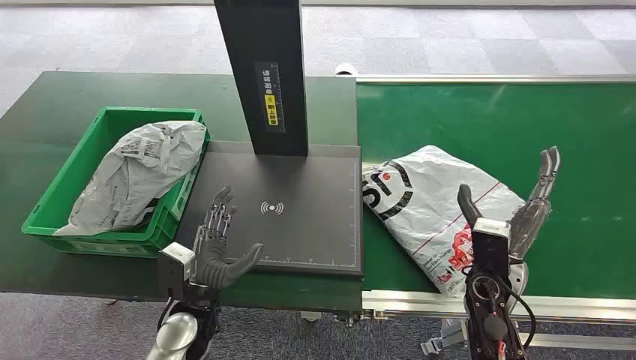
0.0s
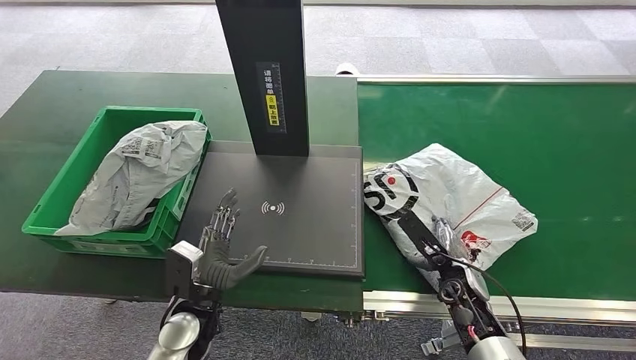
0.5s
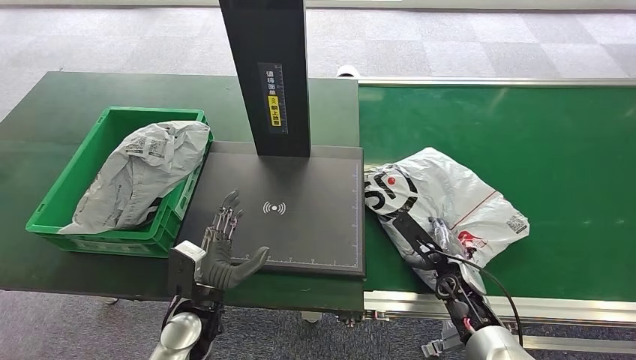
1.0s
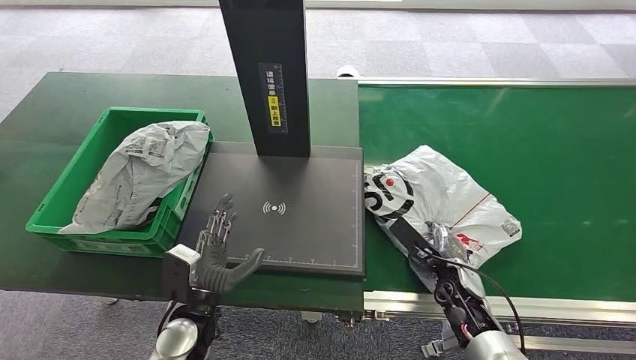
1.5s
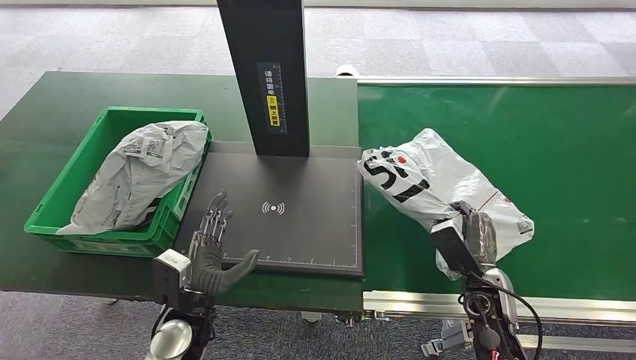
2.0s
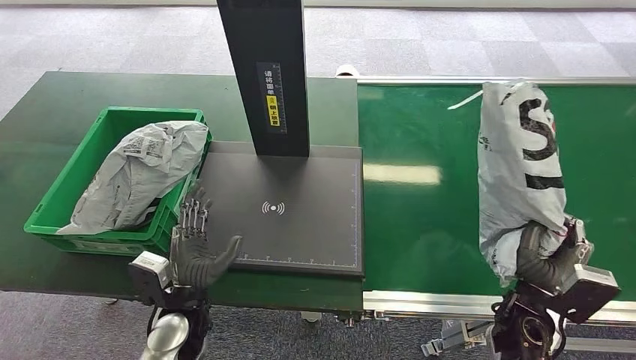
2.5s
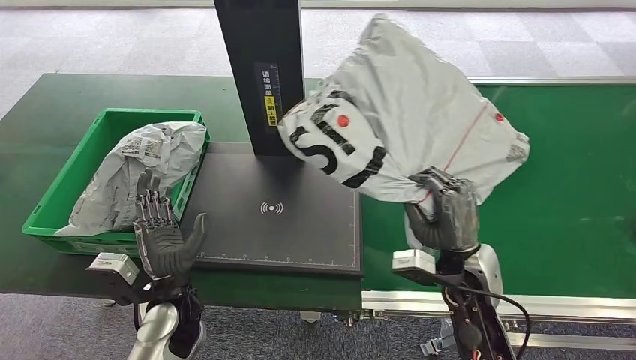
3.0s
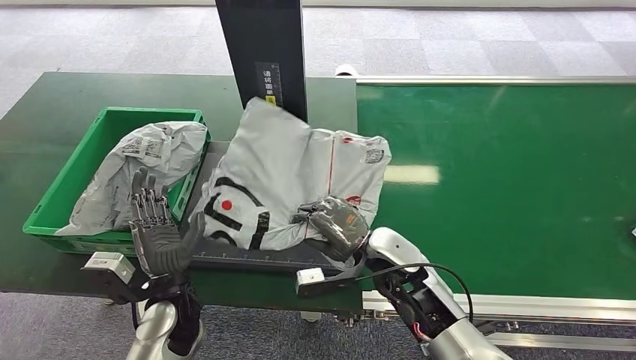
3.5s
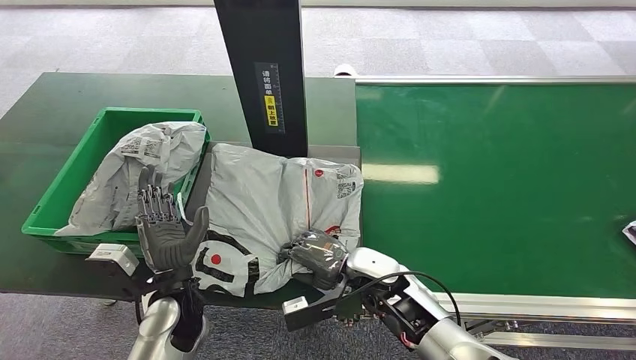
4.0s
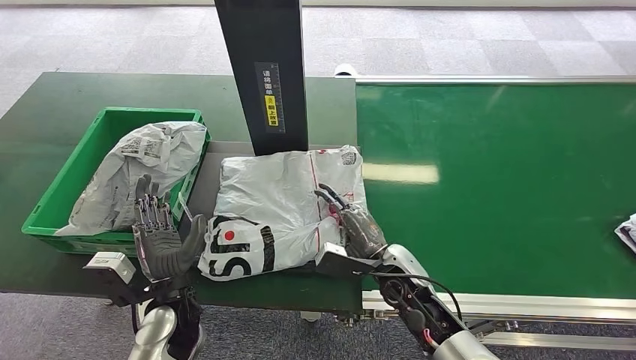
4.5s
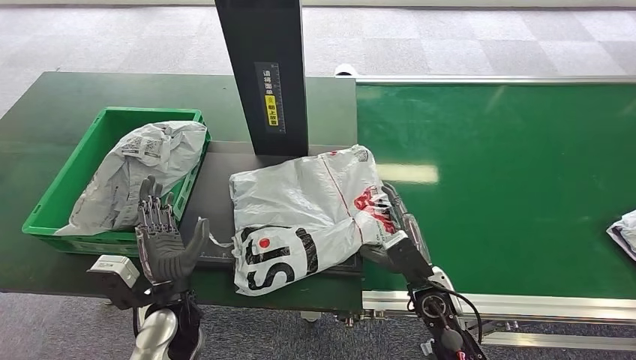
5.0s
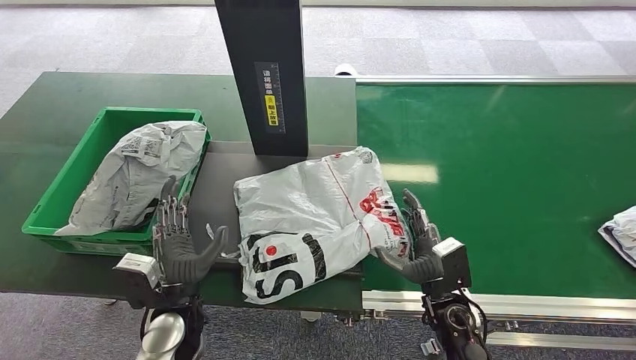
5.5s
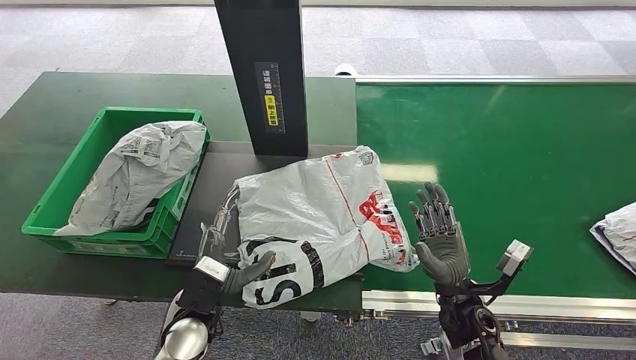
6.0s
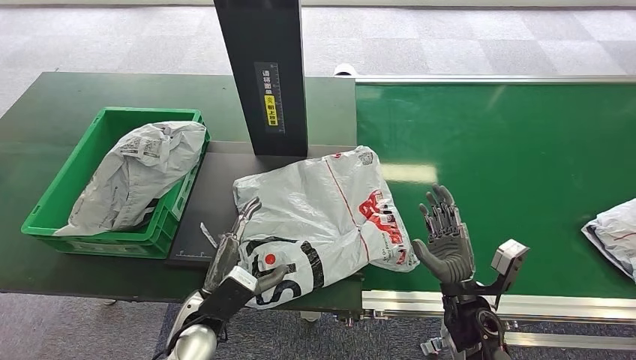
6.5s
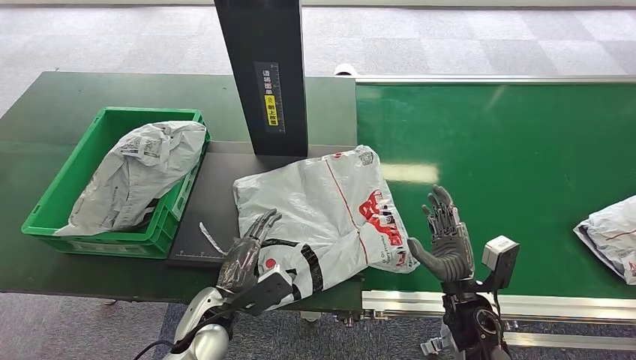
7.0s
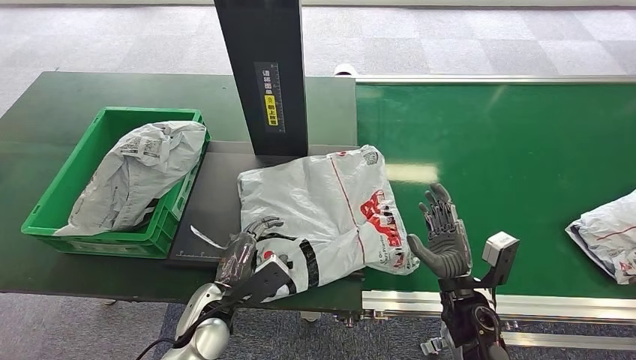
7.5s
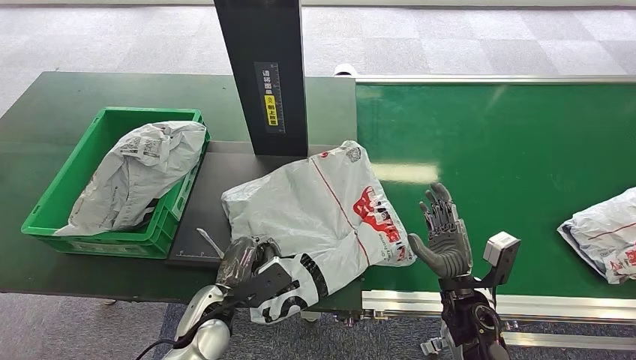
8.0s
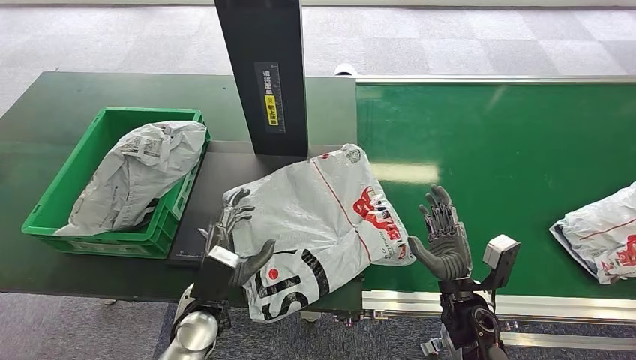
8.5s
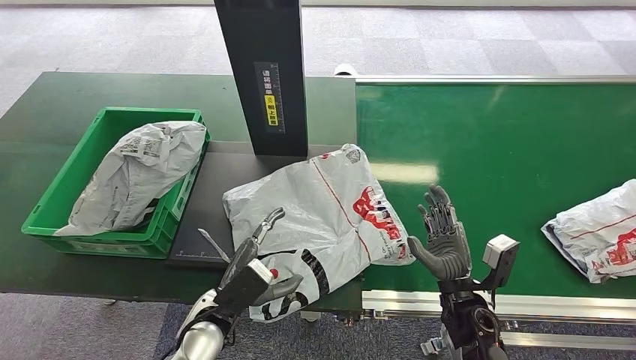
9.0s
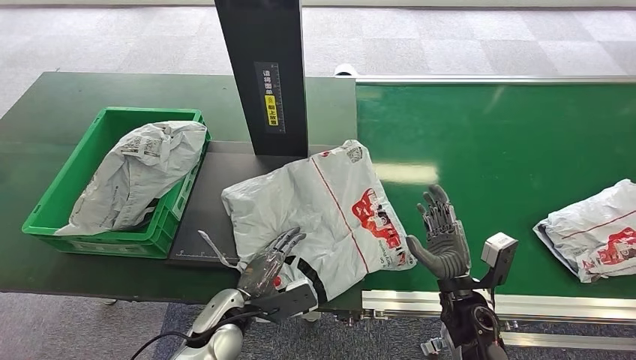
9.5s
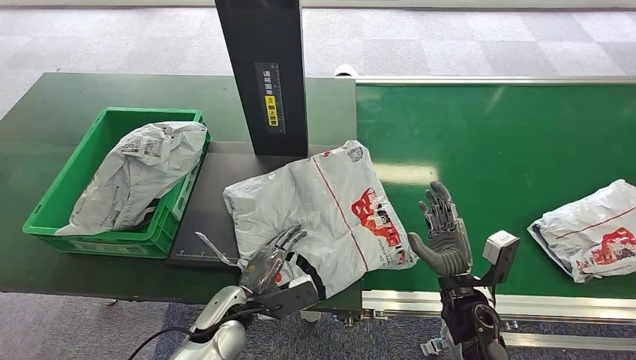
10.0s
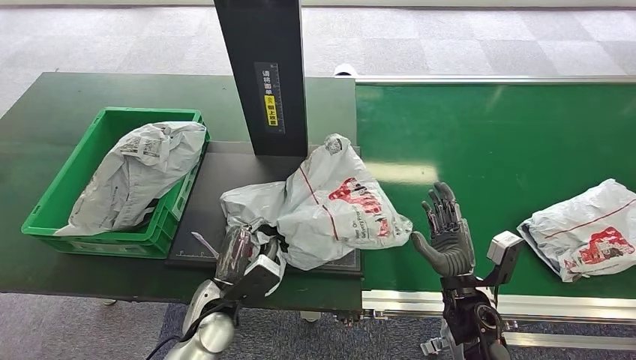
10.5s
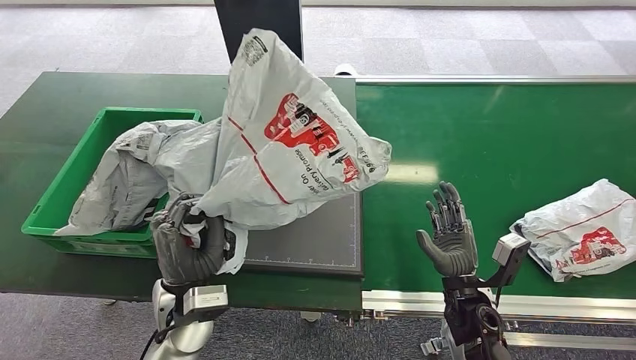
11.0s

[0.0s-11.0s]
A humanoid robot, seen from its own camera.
Step, 0.0s to 2.0s: Pick up the package from the conveyor belt.
Step, 2.5s to 7.0s: Place the package onto the inbound machine.
3.5s to 5.5s: The right hand travels to the right, downward and backward by some 15 cm.

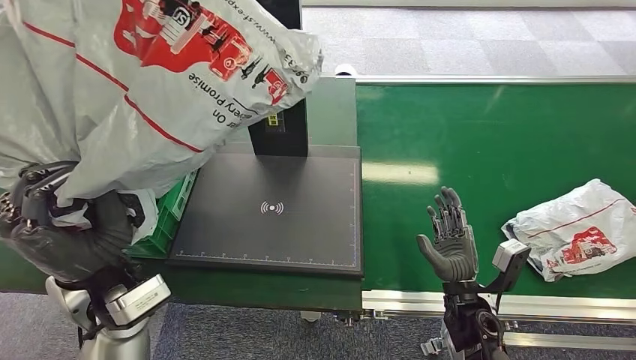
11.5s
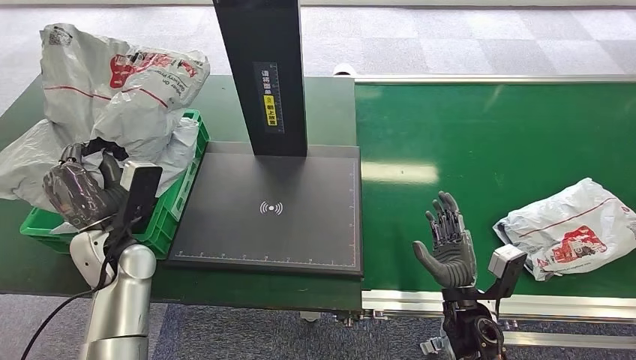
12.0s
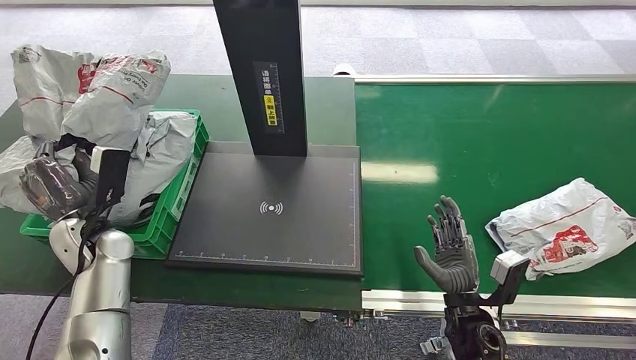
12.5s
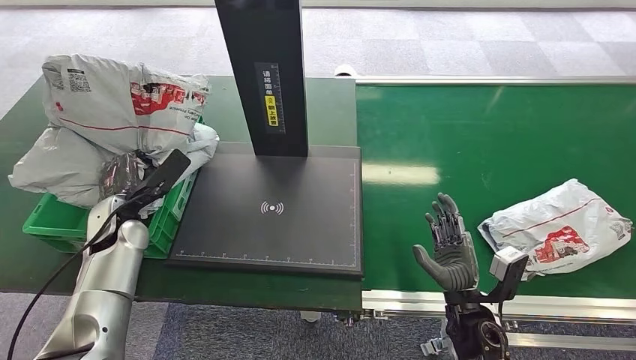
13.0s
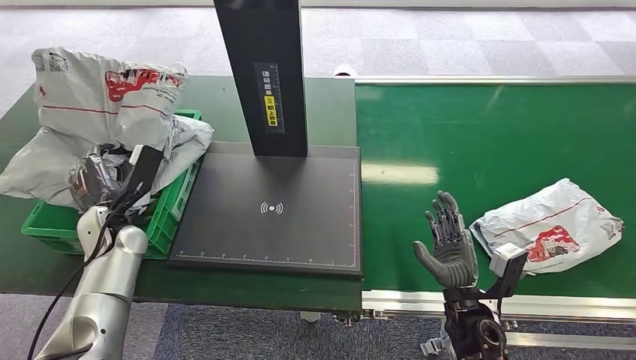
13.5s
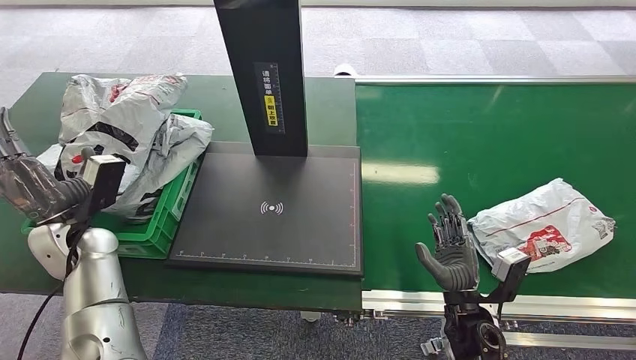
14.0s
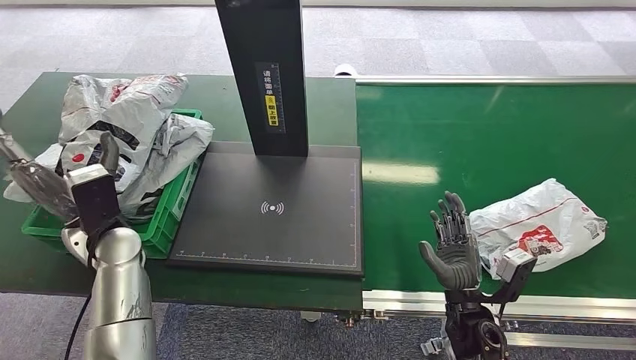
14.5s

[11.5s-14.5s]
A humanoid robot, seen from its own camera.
Step, 11.5s to 14.5s: Place the package into the parcel locker.
13.0s to 14.5s: The left hand shifts roughly 5 cm upward.
